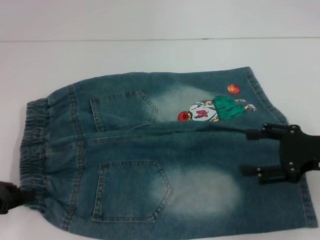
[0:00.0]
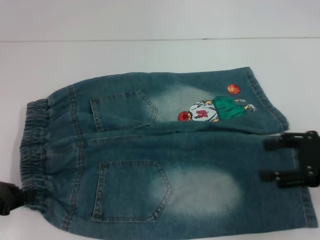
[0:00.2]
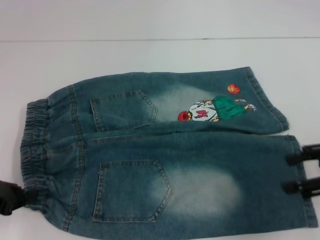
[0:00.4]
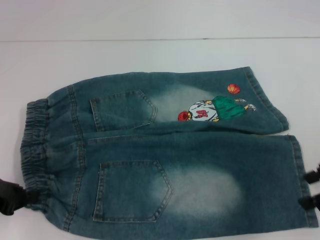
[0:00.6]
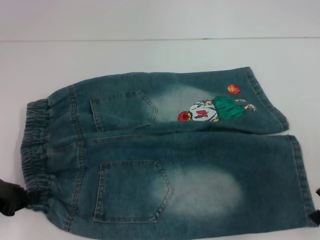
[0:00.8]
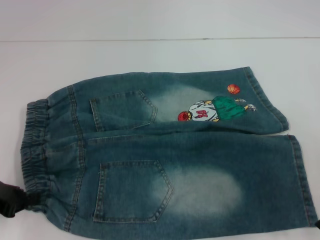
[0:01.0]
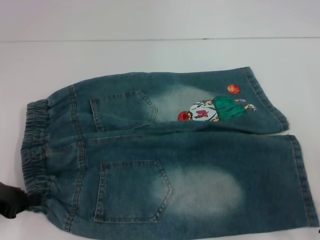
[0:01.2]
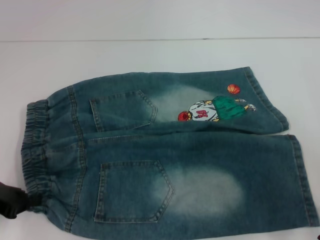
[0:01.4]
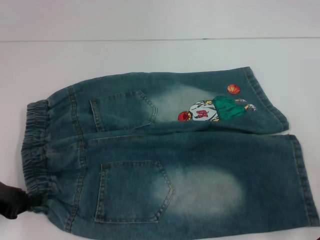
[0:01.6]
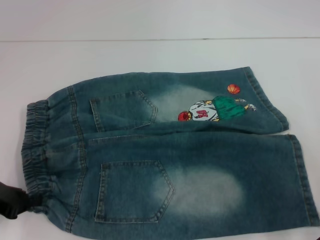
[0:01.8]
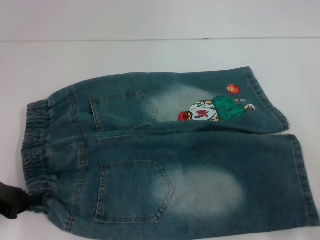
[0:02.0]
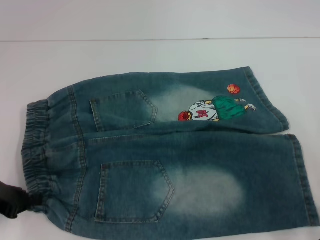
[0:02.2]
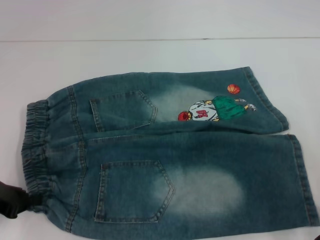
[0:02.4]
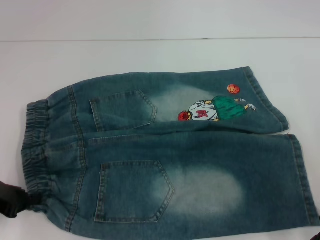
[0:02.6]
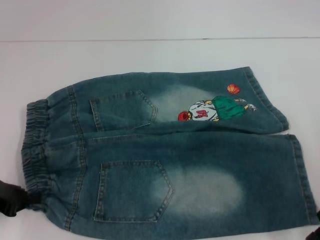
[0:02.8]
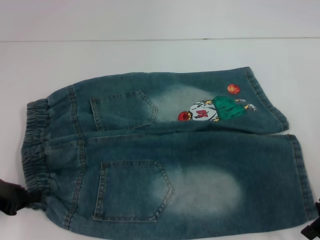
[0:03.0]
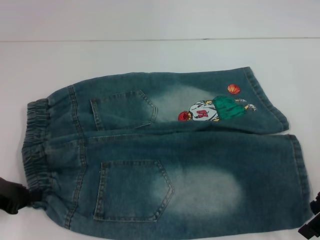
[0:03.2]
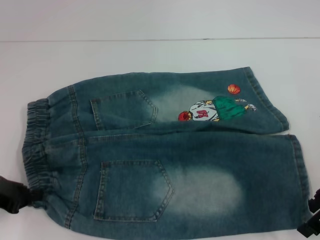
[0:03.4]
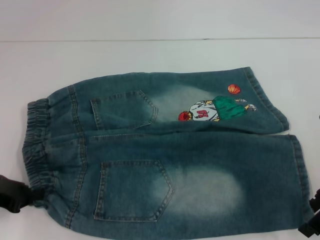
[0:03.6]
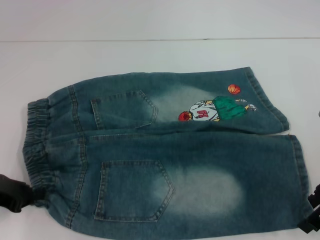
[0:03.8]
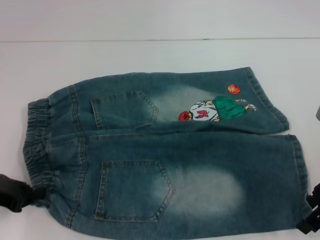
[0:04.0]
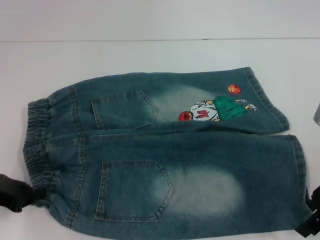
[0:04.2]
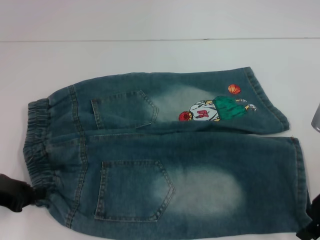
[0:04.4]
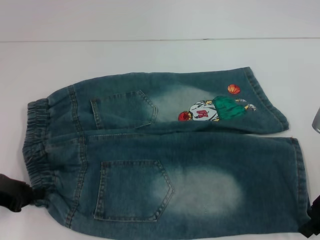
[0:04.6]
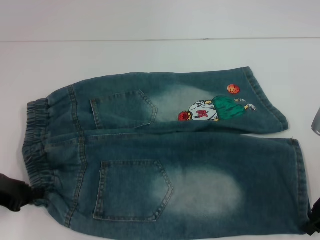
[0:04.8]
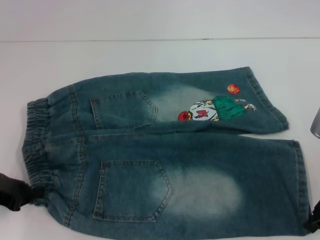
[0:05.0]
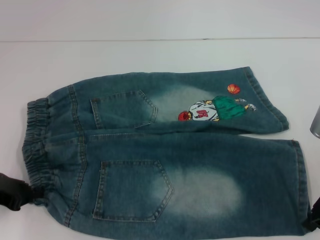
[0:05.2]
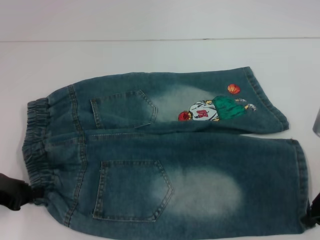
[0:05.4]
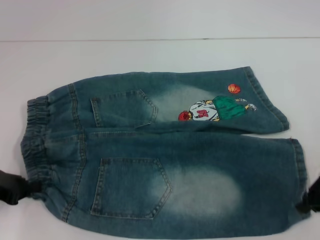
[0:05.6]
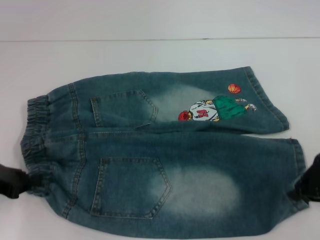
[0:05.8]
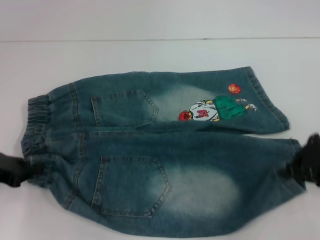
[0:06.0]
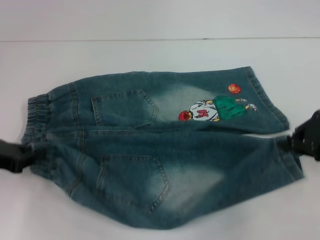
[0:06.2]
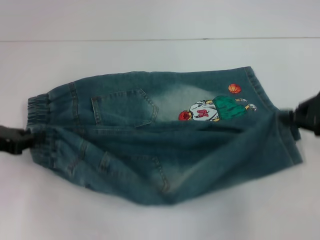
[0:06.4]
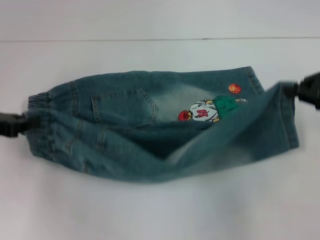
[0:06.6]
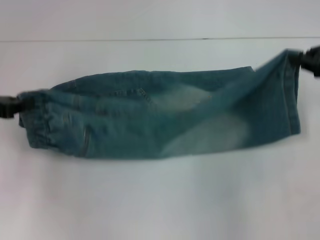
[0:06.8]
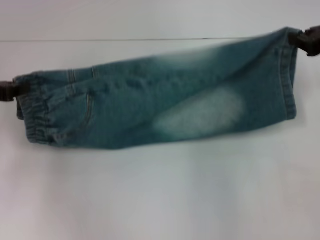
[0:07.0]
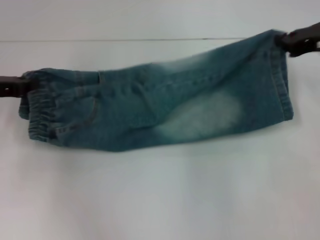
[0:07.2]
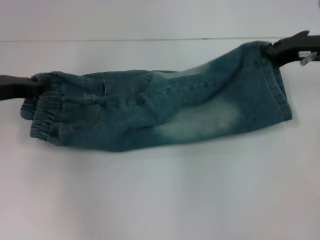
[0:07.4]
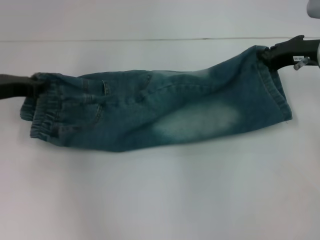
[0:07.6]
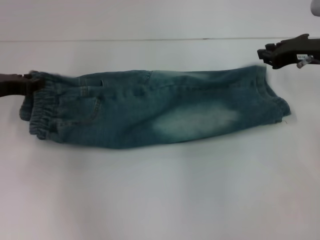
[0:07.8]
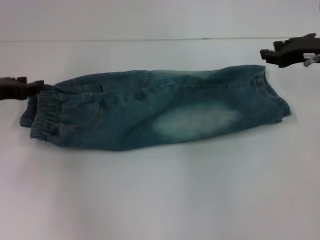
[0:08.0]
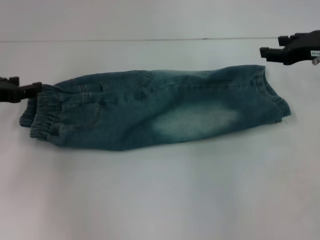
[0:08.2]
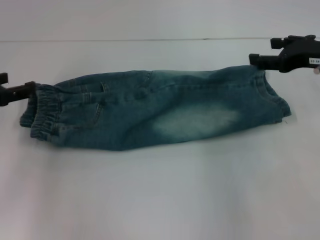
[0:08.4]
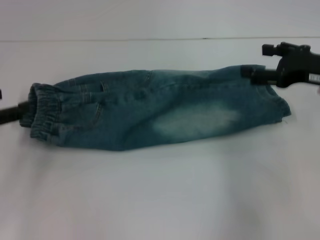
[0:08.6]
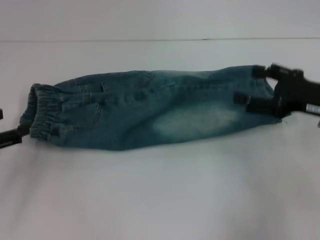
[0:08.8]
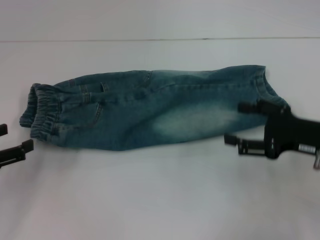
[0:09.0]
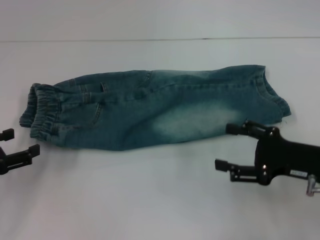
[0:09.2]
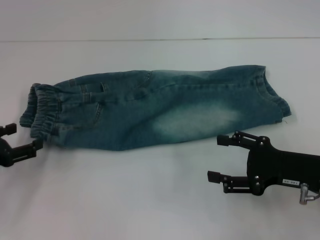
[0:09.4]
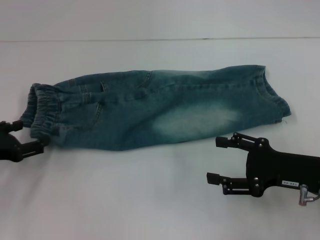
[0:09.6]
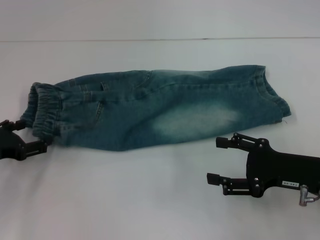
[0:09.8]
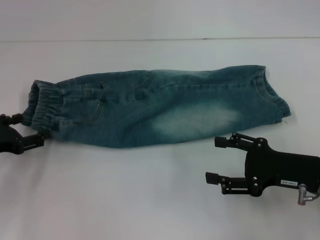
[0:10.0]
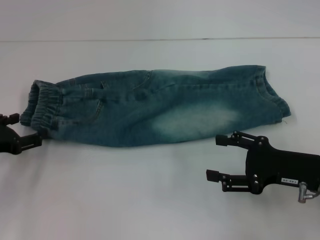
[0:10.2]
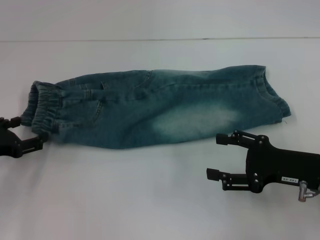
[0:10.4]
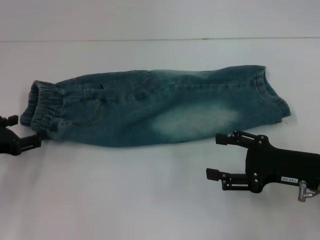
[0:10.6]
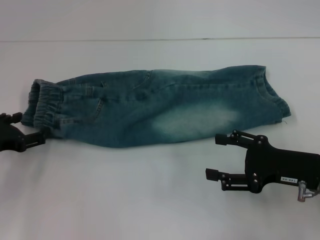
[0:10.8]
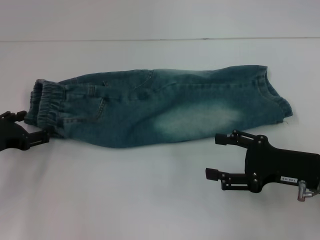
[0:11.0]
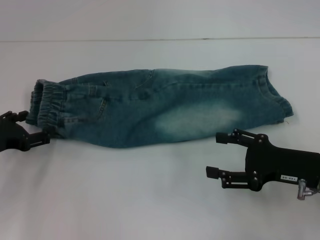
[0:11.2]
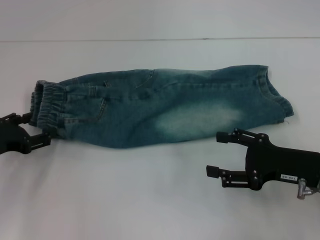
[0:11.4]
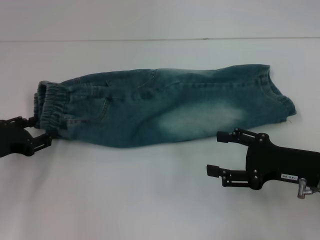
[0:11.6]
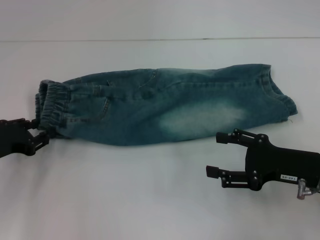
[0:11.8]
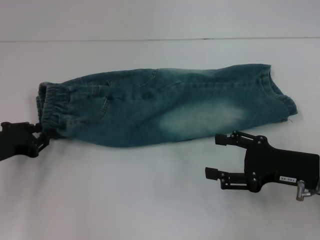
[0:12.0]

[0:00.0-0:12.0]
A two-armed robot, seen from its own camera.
Step, 0:00.2 to 0:05.2: Grab the lower right pant leg with your right hand.
Step, 0:05.4 to 0:07.8: Fold upward with your right hand.
0:01.6 to 0:04.4: The grippers stay close to where they were, moving slightly.
0:04.4 to 0:06.0: The right gripper closes up.
0:06.0 to 0:07.6: Both grippers move forward, some 10 cm.
0:07.6 to 0:09.0: The right gripper is displaced backward and downward by about 15 cm, and opens. The left gripper travels backward and to the left by about 15 cm, and opens up.
0:09.0 to 0:10.4: The left gripper changes place by roughly 5 cm.
0:10.4 to 0:12.0: The left gripper closes up.

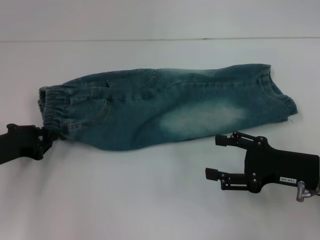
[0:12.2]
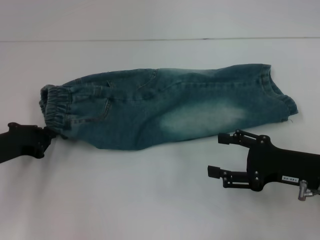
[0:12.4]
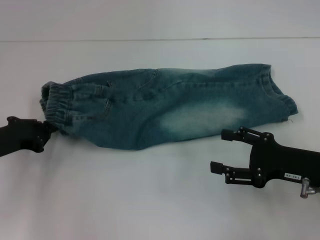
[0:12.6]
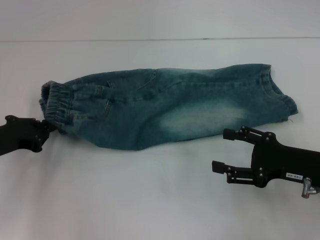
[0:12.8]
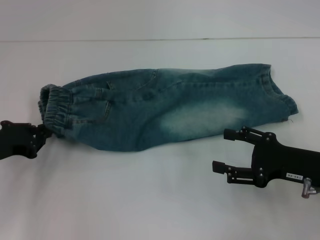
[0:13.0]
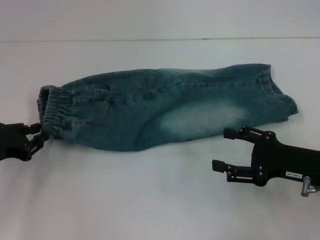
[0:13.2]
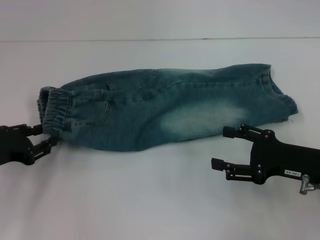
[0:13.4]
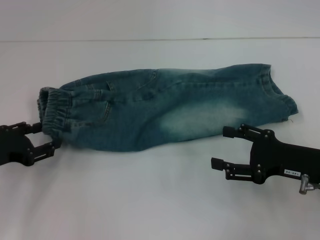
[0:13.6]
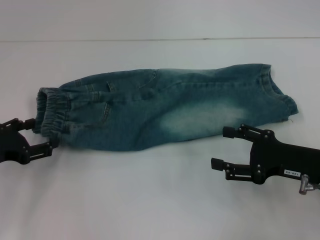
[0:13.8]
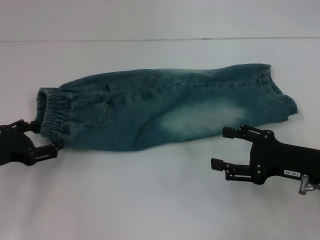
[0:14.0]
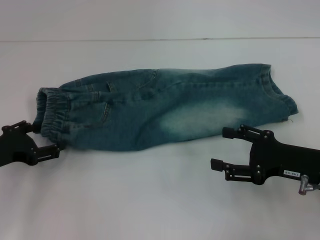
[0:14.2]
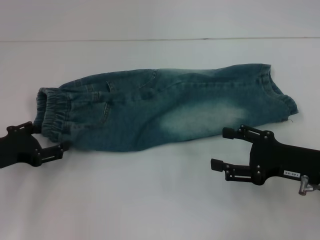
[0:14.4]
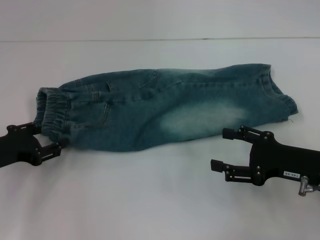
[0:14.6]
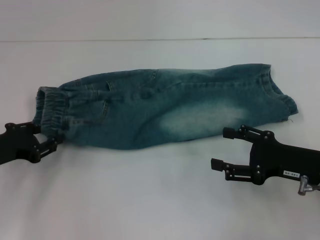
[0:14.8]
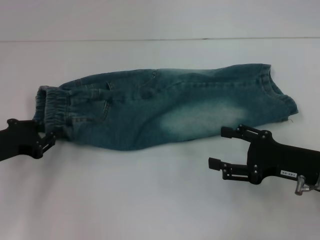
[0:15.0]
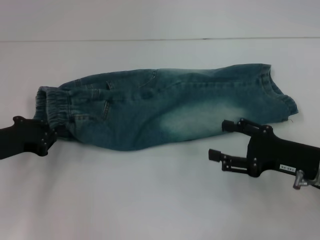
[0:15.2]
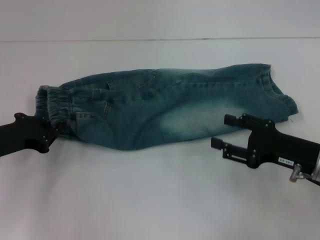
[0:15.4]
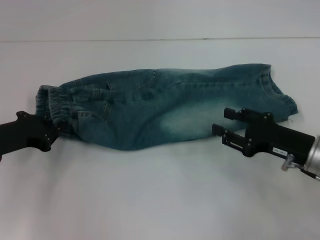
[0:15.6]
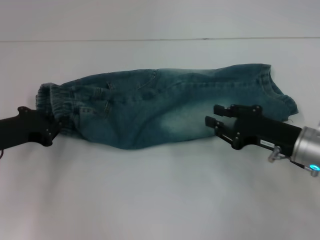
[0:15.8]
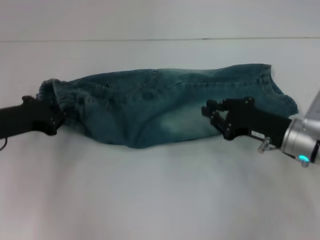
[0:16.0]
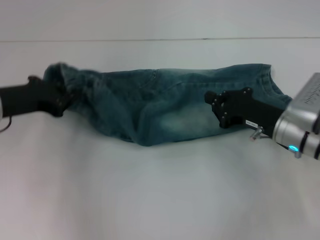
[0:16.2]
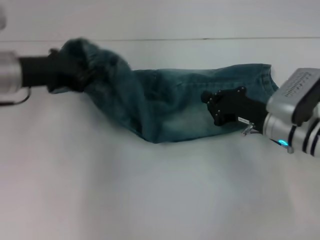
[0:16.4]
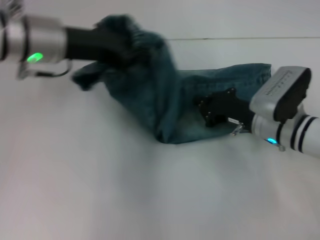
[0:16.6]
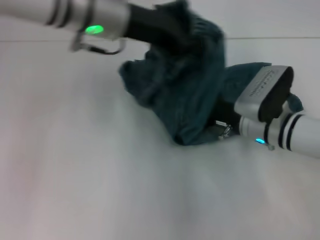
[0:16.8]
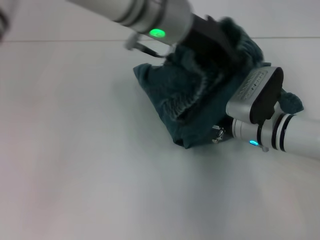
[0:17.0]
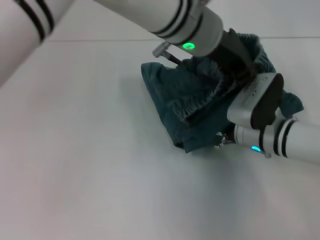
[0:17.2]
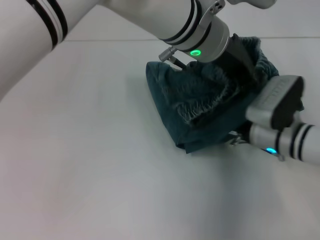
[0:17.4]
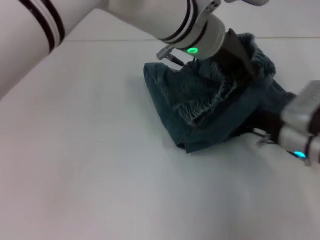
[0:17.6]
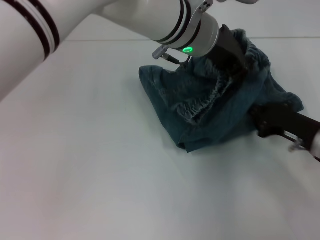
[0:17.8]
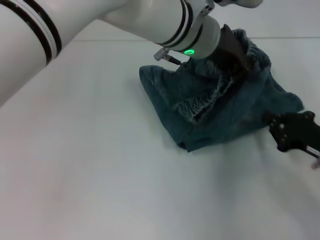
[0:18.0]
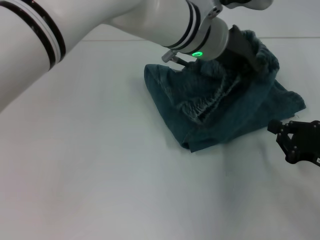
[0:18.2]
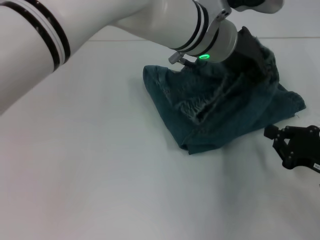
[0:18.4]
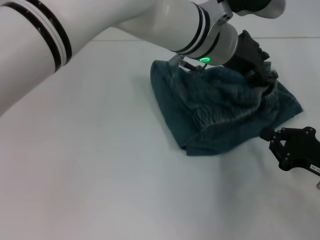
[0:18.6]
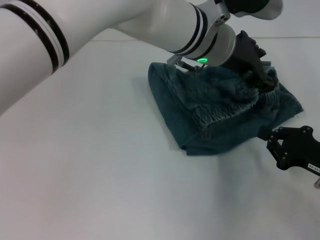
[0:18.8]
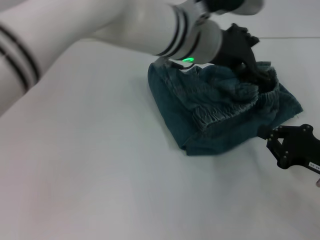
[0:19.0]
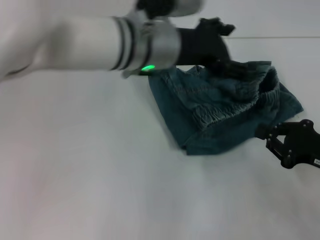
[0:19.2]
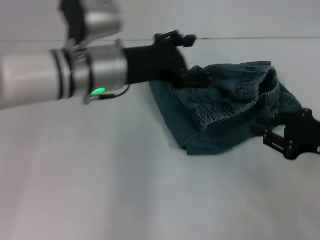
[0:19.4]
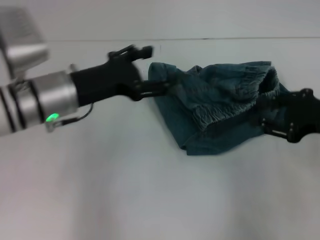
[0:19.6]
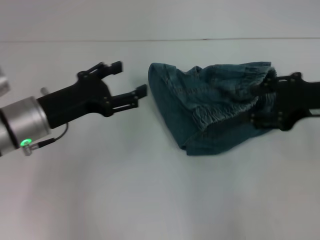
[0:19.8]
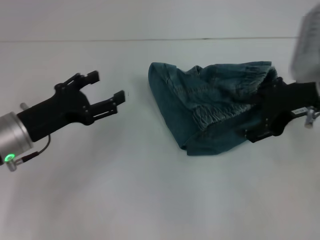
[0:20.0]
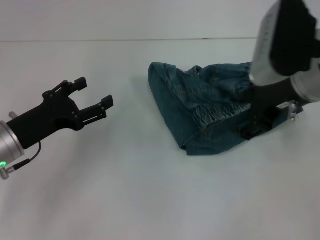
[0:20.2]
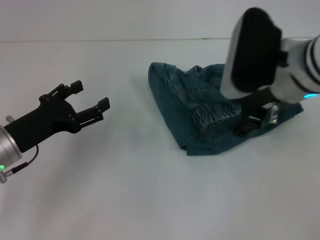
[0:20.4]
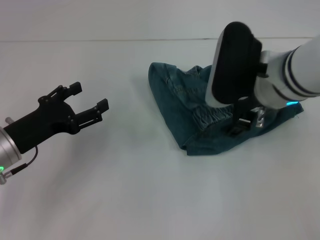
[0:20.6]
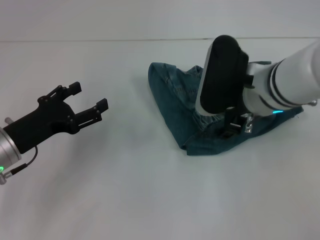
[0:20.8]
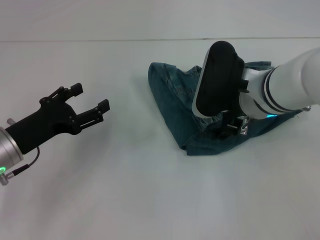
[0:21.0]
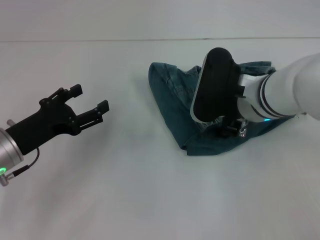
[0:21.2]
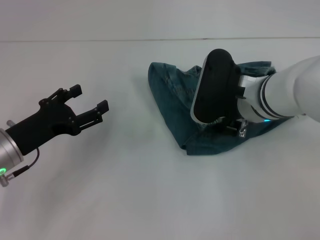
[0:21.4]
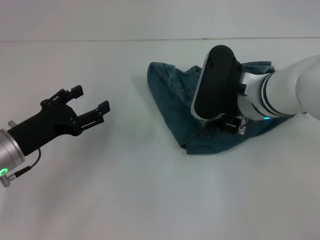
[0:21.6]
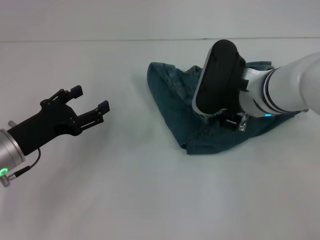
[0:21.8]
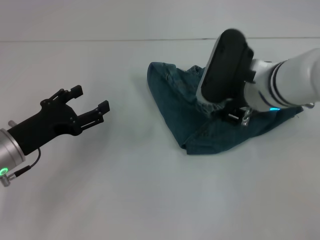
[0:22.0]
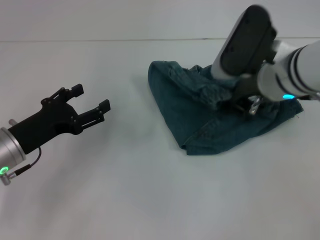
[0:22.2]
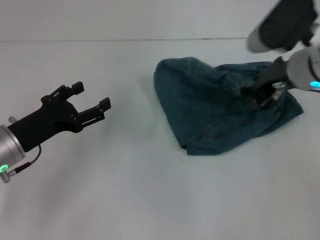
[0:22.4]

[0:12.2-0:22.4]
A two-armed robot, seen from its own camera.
Step, 0:12.2 to 0:15.4: Hold the waistband with your left hand.
Step, 0:15.6 to 0:17.2: Press the middle of the pants with your right hand.
Step, 0:17.4 to 0:18.6: Fold to the right with your left hand.
0:12.2 to 0:13.6: The grippers stay close to where they were, moving slightly.
0:13.6 to 0:15.2: The left gripper opens, then closes once more.
0:15.2 to 0:16.6: The right gripper moves forward and to the left, some 10 cm, and closes its fingers. The left gripper is displaced upward, to the right and forward by roughly 20 cm.
0:16.6 to 0:18.0: The right gripper heads to the right and backward, covering approximately 15 cm. The left gripper is displaced to the right by roughly 20 cm.
0:18.0 to 0:19.4: The right gripper is displaced upward by some 5 cm. The left gripper shifts roughly 15 cm to the left, and opens.
0:19.4 to 0:21.0: The left gripper heads to the left, downward and backward, covering some 20 cm; the right gripper is displaced to the left and forward by approximately 20 cm, and opens up.
0:21.0 to 0:22.4: The right gripper shifts roughly 5 cm to the right, and closes up.
